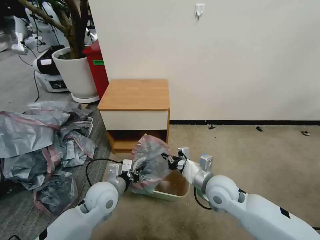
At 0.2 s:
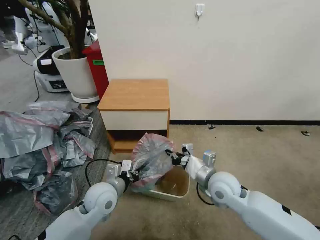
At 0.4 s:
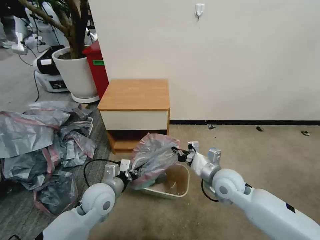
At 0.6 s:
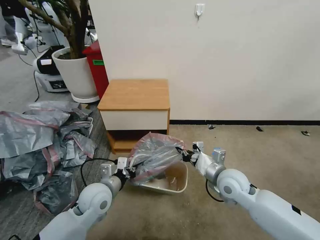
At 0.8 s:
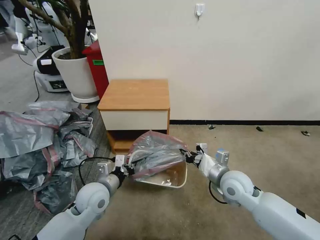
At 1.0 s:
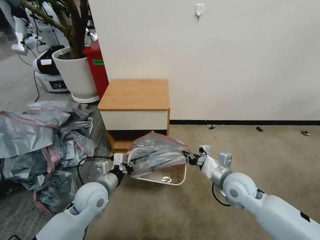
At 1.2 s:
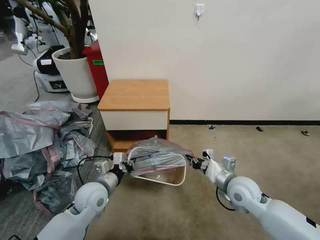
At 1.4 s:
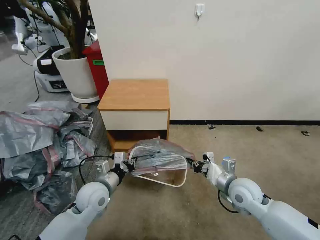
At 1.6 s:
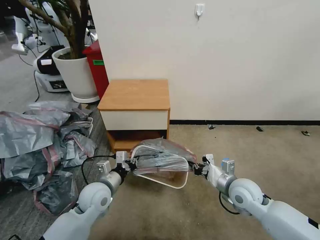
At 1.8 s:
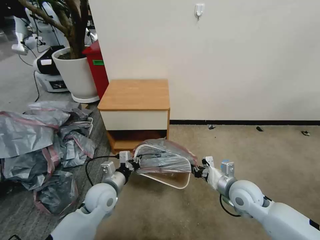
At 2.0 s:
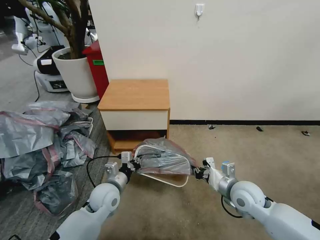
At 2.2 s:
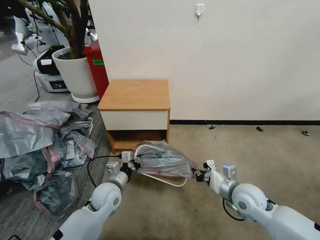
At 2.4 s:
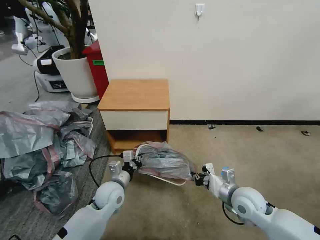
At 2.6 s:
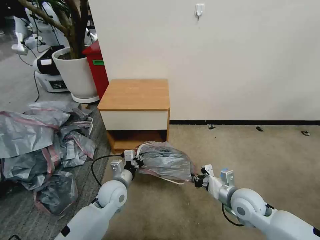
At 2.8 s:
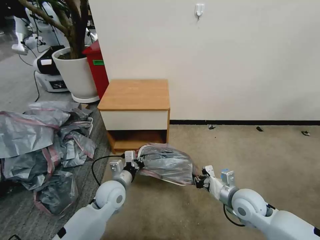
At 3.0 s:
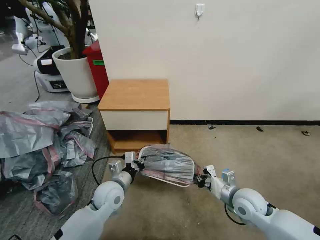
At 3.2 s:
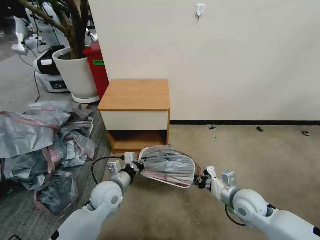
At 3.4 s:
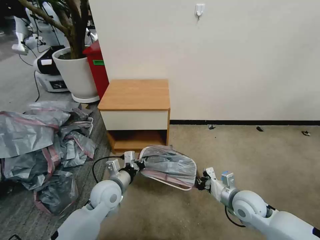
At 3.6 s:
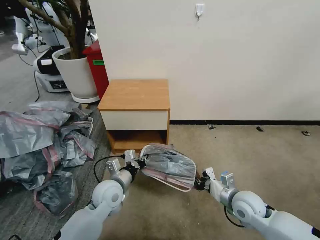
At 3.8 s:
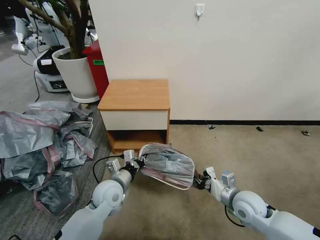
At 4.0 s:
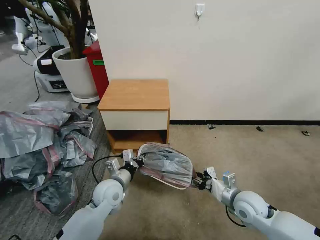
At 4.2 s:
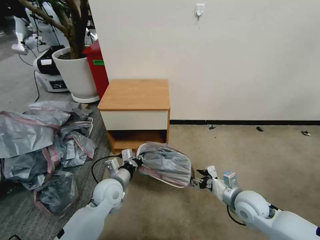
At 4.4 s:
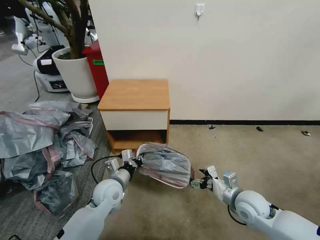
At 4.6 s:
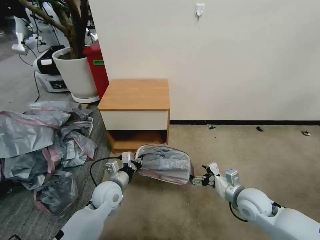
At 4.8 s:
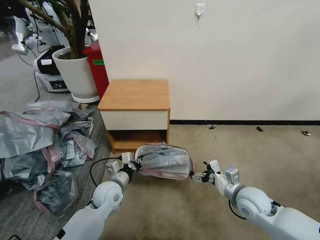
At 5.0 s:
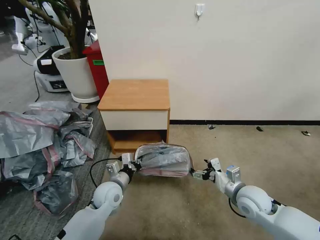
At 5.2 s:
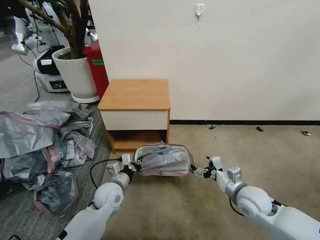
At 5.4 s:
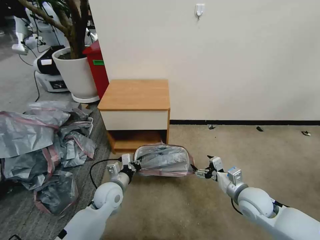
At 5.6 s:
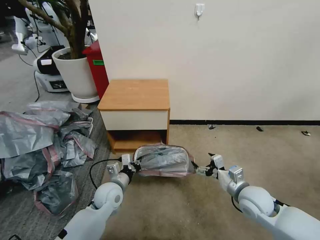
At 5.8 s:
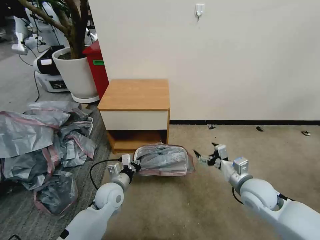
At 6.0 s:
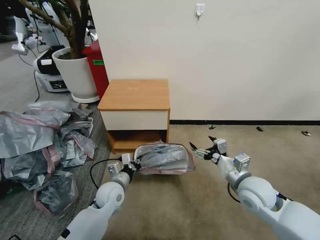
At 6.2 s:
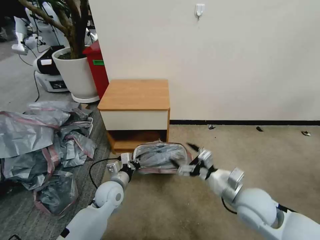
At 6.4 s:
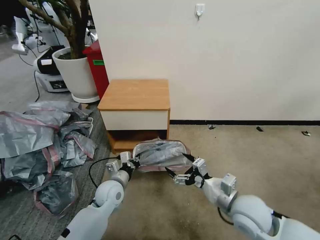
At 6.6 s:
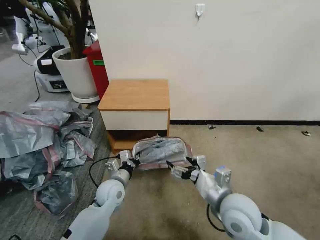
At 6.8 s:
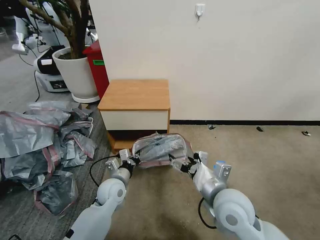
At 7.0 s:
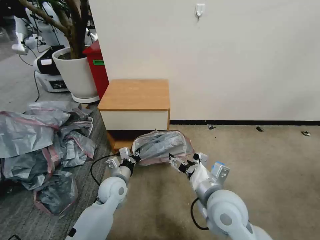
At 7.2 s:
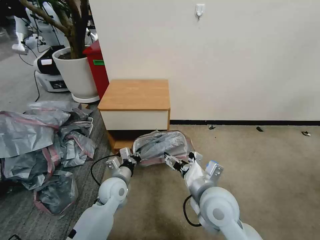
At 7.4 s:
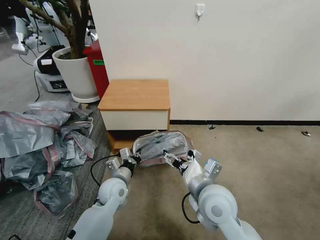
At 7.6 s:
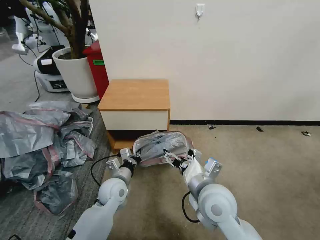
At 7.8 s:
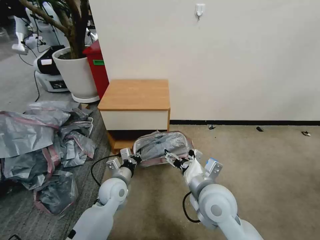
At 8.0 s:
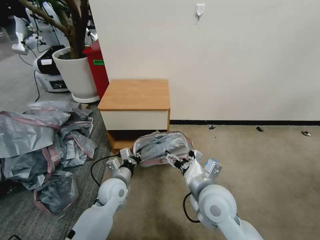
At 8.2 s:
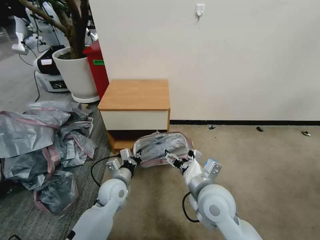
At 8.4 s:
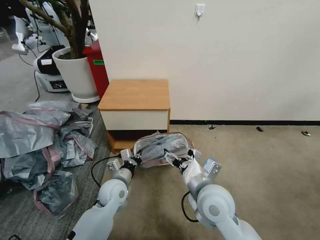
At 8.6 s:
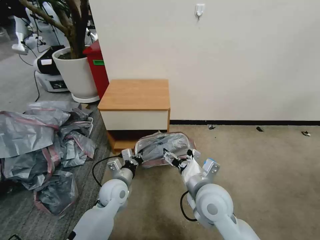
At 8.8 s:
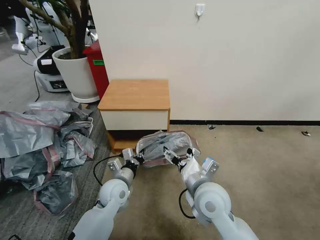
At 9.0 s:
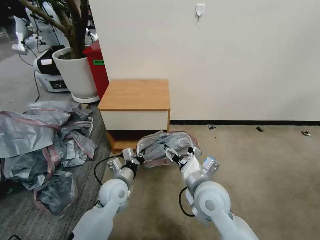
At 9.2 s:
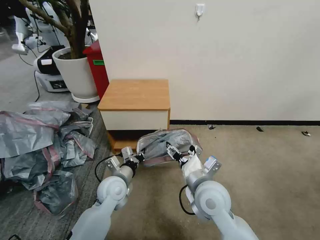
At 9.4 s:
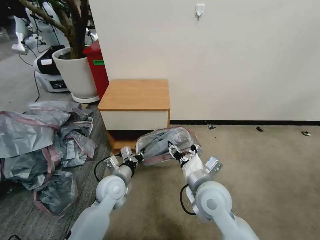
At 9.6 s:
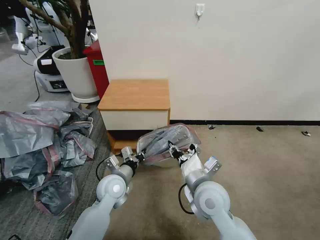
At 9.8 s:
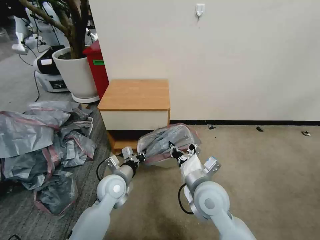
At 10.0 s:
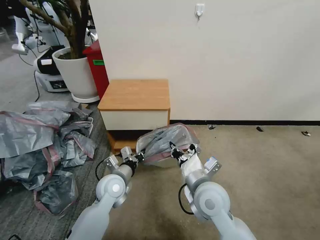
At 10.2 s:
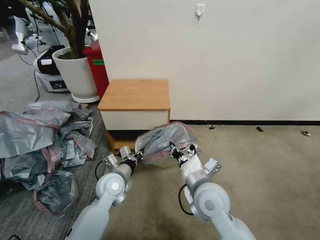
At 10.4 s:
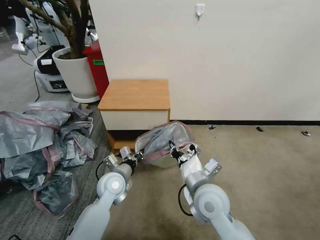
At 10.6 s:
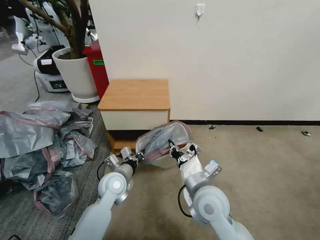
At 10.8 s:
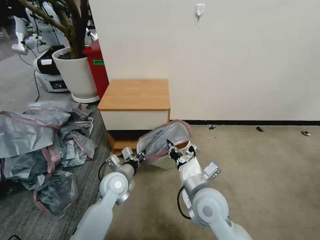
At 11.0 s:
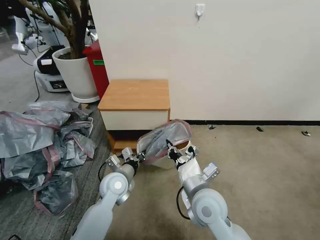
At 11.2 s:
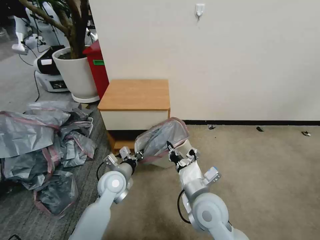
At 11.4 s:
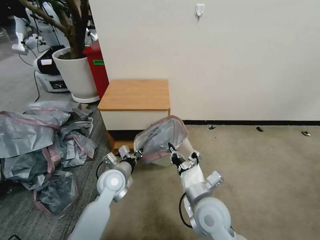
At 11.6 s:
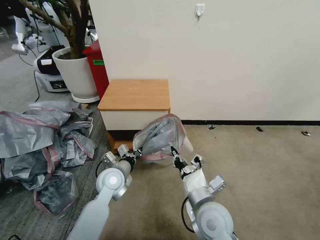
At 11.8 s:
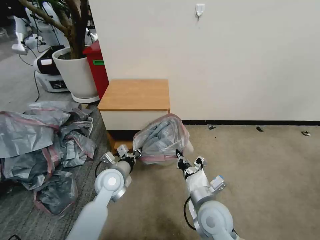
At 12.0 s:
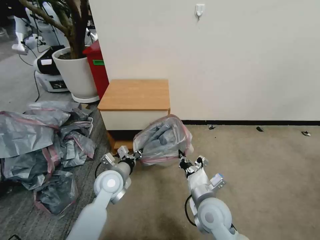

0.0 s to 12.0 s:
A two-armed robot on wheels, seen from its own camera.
Task of the whole recording: Pick up the garbage bag from the table and place it over the trash can.
0.0 to 1.6 s: The right gripper moves to the right, about 10 cm.
1.6 to 3.0 s: There are only small adjustments of the grippers.
3.0 to 4.4 s: The right gripper opens up.
4.4 to 6.0 s: The right gripper travels upward by roughly 10 cm.
6.0 to 7.6 s: The right gripper travels to the left by some 15 cm.
7.6 to 9.0 s: The grippers stay close to where they were, moving slightly.
9.0 to 10.4 s: The right gripper closes up.
10.4 to 12.0 s: The right gripper shifts some 5 cm downward.

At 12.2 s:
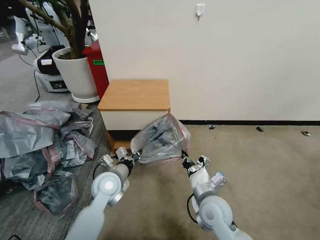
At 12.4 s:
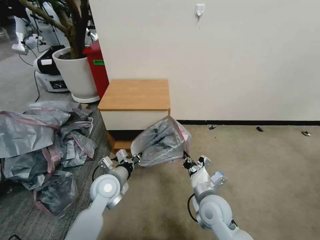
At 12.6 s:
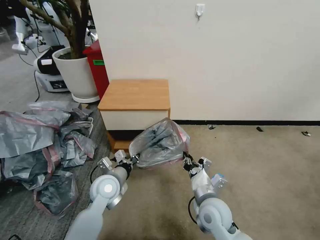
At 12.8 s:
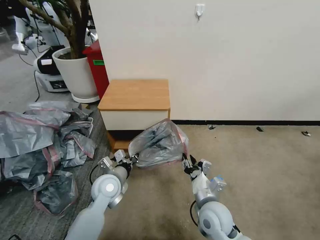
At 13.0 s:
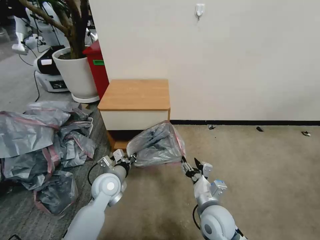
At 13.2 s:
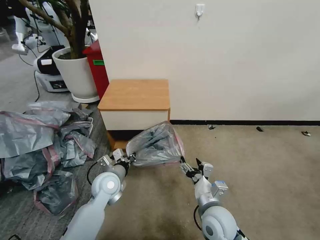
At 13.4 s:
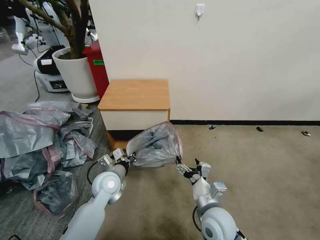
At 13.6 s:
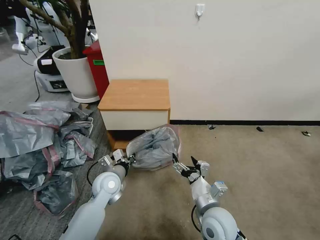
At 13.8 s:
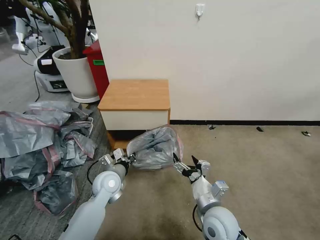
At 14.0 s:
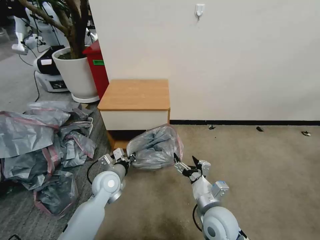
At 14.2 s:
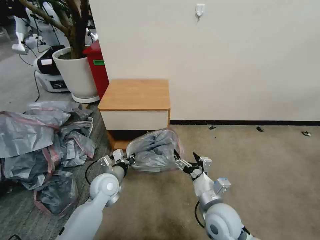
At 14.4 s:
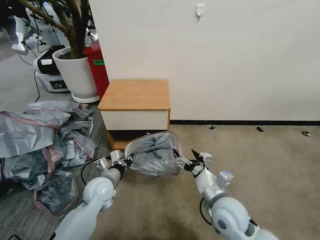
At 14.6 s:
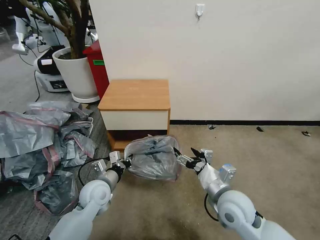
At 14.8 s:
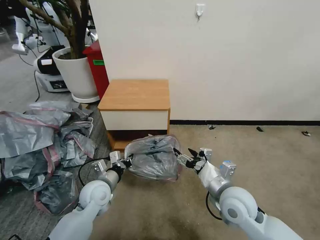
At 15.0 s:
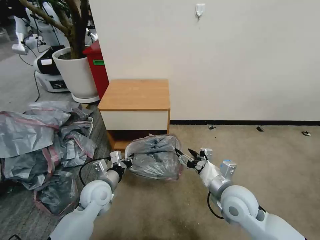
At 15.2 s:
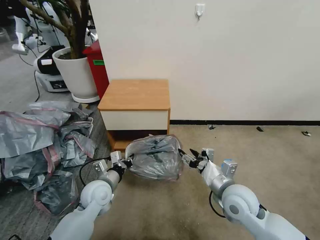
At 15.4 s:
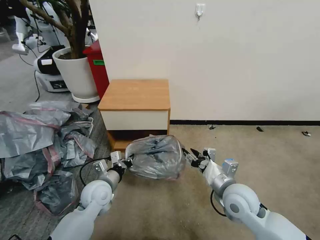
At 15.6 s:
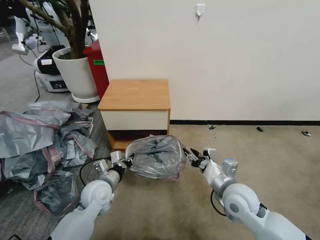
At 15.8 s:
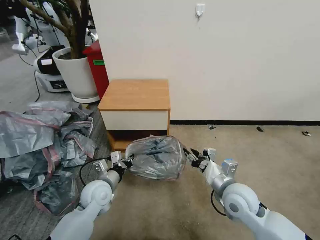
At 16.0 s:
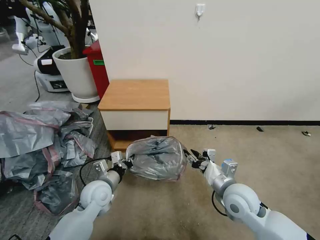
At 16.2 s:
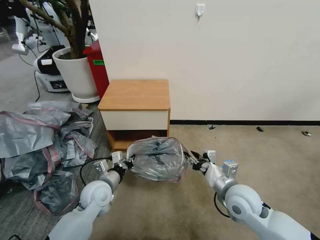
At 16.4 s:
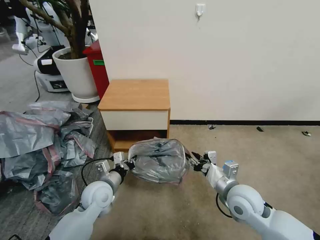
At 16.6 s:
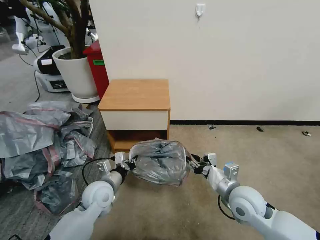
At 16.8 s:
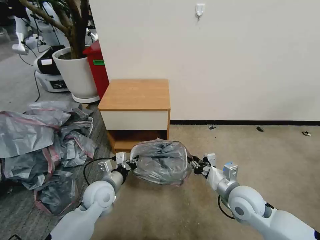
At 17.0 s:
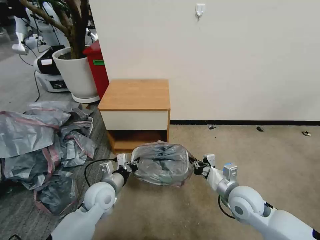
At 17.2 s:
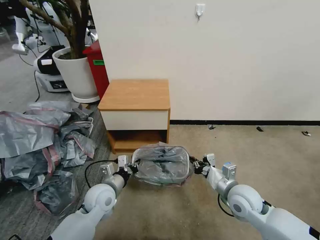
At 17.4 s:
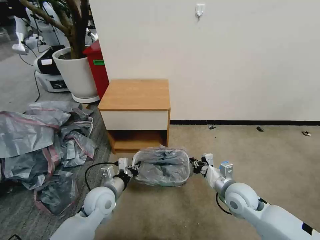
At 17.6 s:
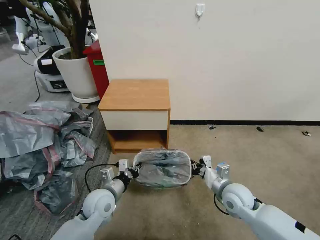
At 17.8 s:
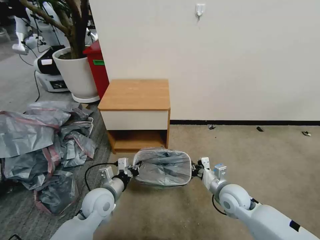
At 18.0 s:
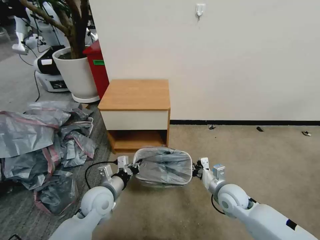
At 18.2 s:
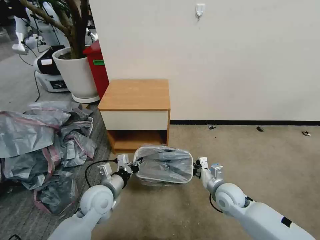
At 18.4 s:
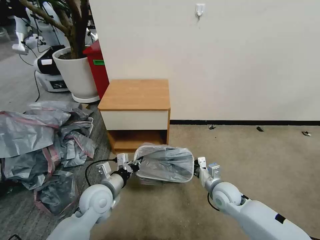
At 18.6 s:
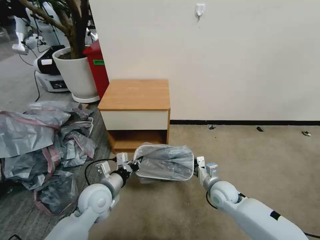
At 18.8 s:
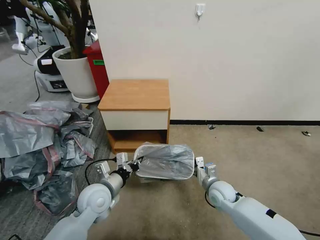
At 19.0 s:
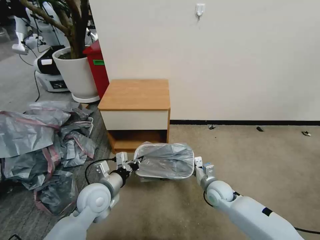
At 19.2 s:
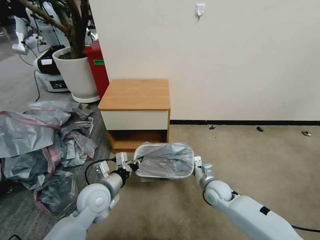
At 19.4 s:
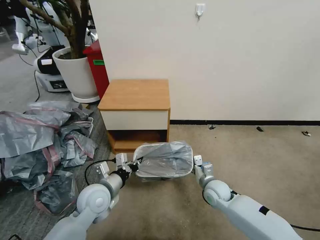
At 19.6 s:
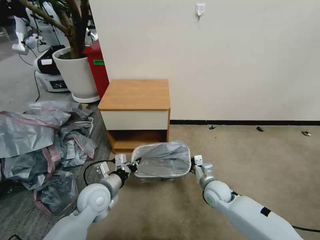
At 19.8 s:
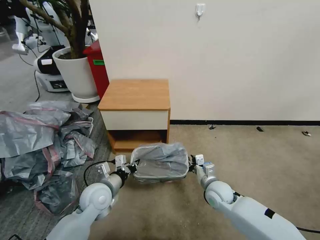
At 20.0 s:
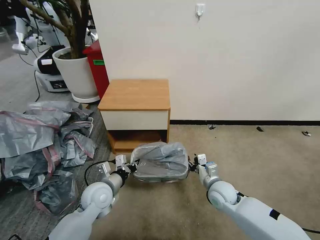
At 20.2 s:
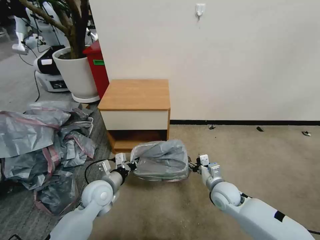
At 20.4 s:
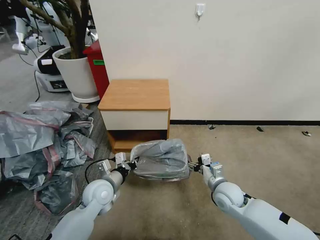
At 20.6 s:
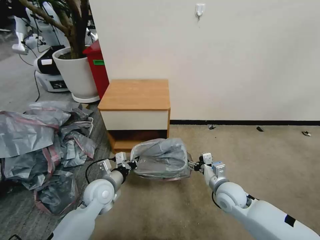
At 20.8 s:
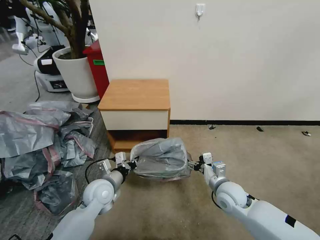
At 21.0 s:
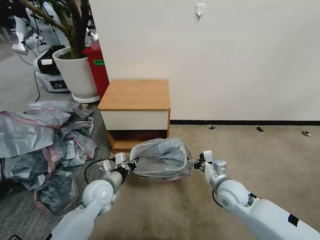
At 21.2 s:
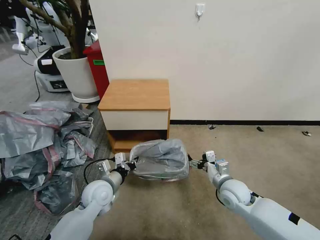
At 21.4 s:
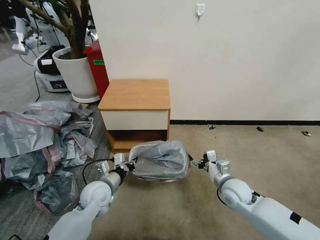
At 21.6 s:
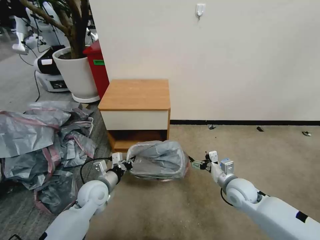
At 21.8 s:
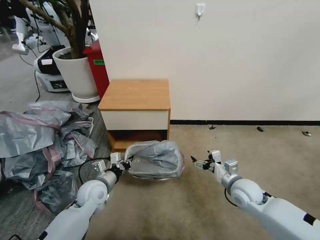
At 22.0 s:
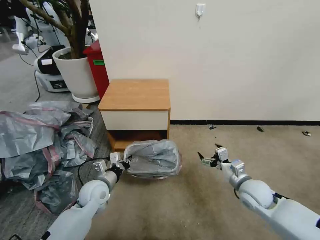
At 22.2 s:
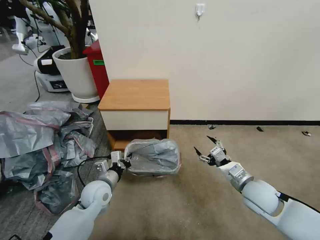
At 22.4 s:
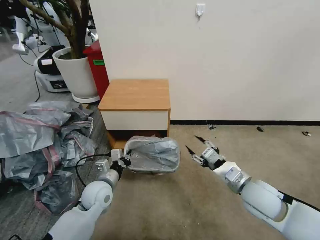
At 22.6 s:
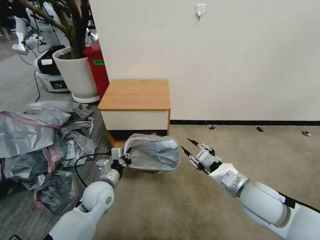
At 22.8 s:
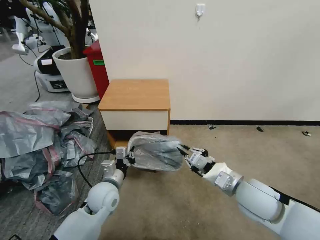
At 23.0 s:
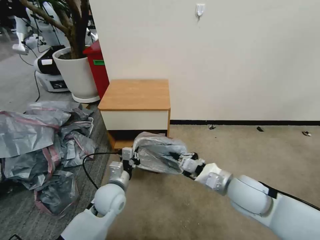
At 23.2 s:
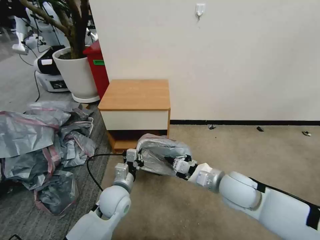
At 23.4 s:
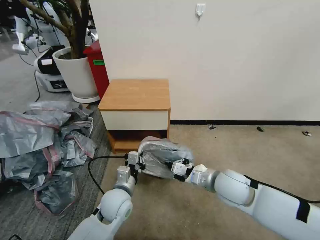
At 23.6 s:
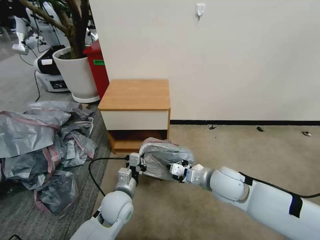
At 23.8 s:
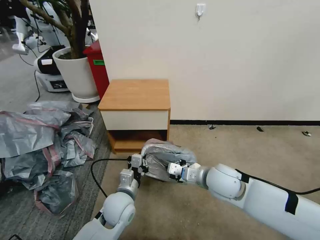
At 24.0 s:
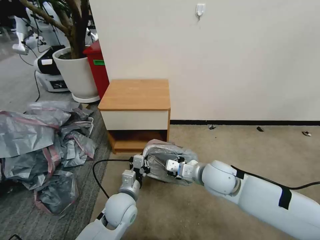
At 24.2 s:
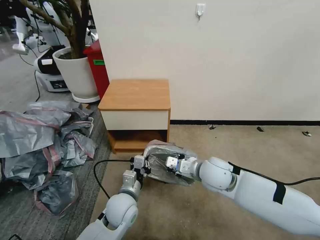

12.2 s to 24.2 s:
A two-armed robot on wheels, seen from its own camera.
Task of the whole recording: Pick up the garbage bag from the table and place it over the trash can.
12.2 to 13.8 s: The right gripper opens its fingers.
13.8 to 15.2 s: The right gripper heads to the right, covering approximately 5 cm, and closes.
15.2 to 16.6 s: The grippers make only small movements.
16.6 to 18.2 s: The right gripper heads downward, covering roughly 10 cm, and closes its fingers.
18.2 to 19.8 s: The right gripper opens up.
19.8 to 21.2 s: The right gripper shifts by about 5 cm, and opens up.
21.2 to 22.6 s: The right gripper goes some 15 cm upward and backward, and closes its fingers.
22.6 to 24.2 s: The right gripper travels to the left and forward by approximately 15 cm, and closes up; the left gripper goes roughly 10 cm to the right.
